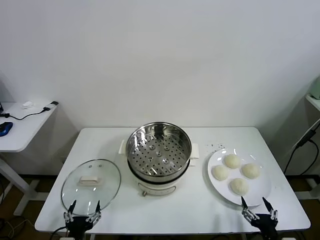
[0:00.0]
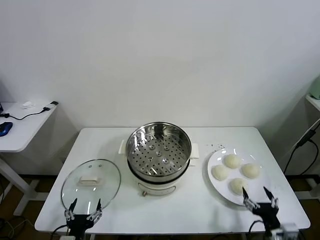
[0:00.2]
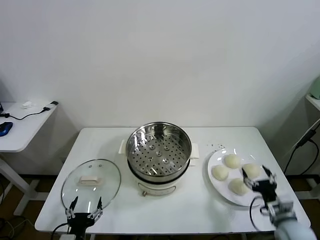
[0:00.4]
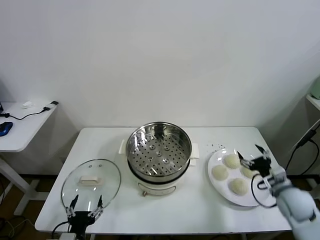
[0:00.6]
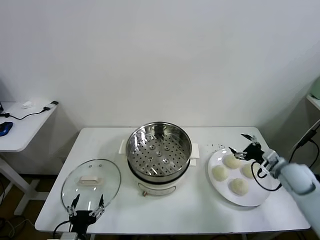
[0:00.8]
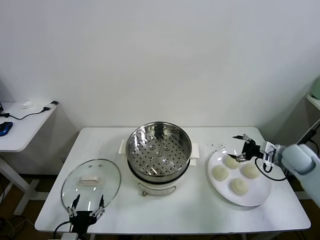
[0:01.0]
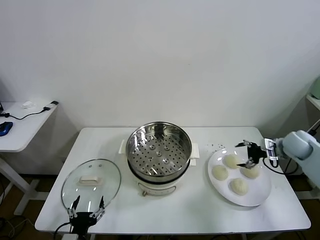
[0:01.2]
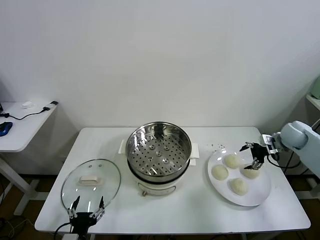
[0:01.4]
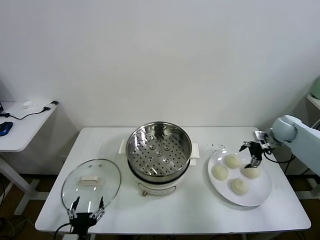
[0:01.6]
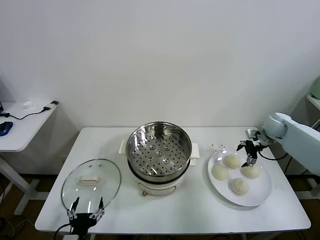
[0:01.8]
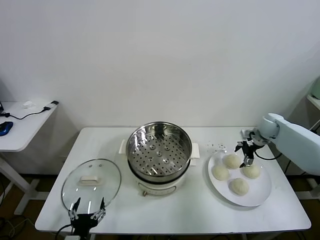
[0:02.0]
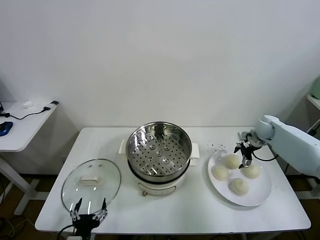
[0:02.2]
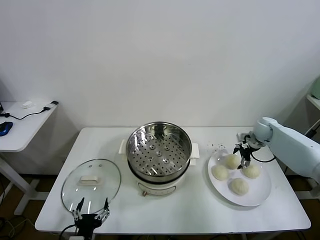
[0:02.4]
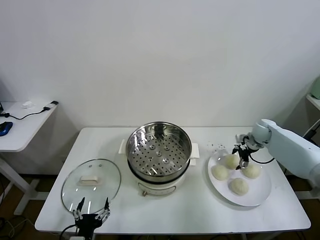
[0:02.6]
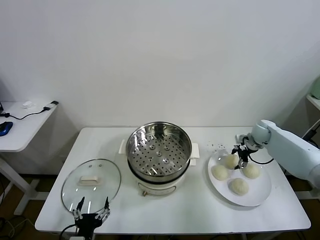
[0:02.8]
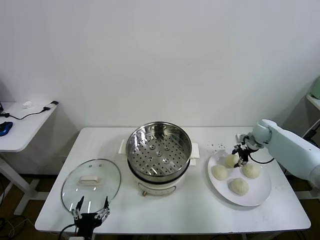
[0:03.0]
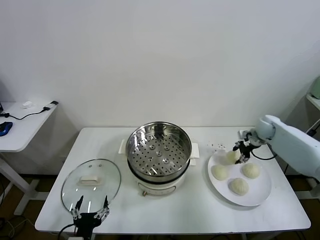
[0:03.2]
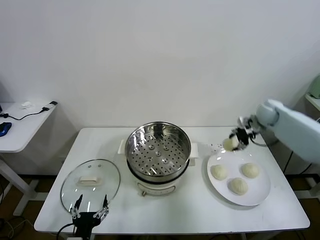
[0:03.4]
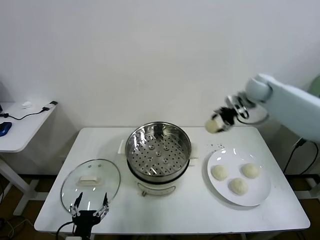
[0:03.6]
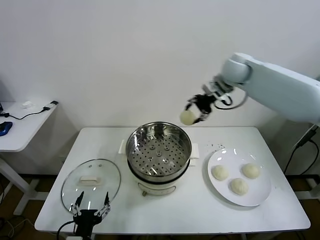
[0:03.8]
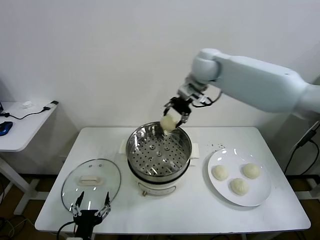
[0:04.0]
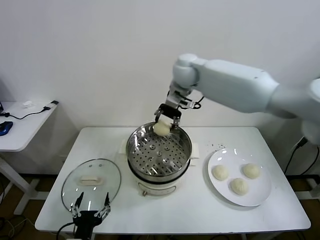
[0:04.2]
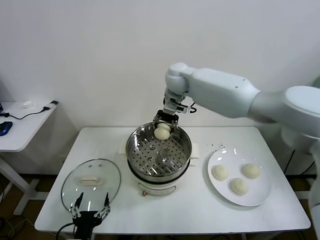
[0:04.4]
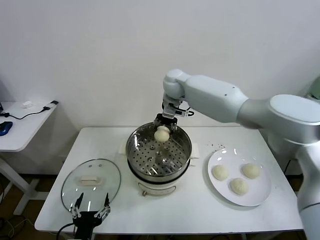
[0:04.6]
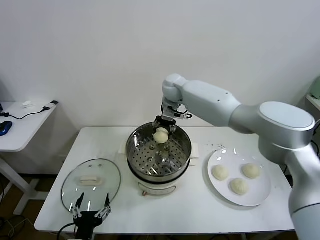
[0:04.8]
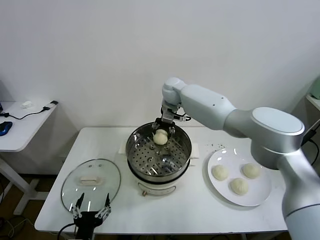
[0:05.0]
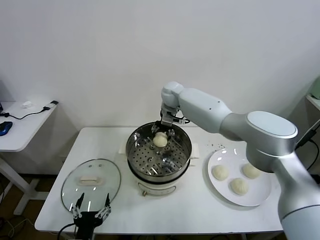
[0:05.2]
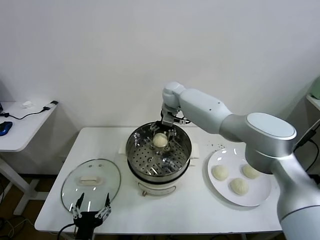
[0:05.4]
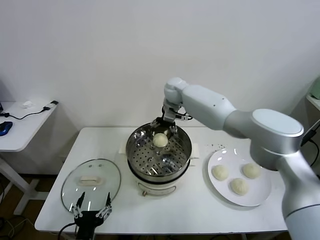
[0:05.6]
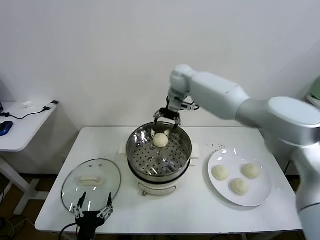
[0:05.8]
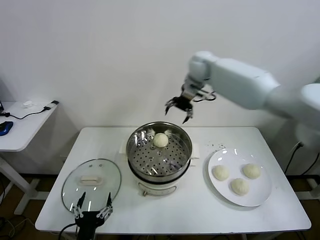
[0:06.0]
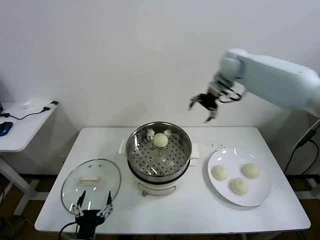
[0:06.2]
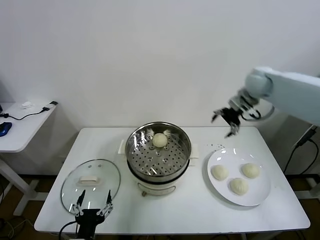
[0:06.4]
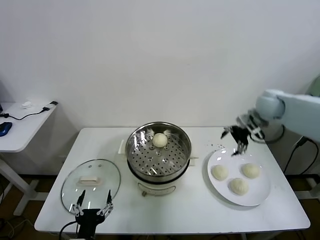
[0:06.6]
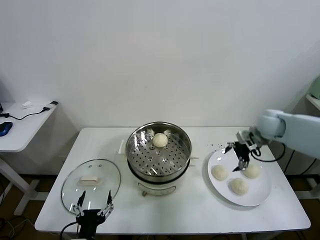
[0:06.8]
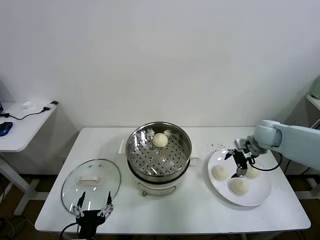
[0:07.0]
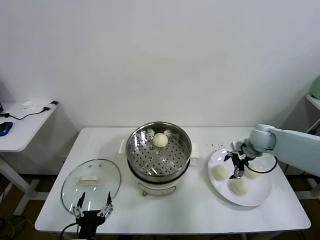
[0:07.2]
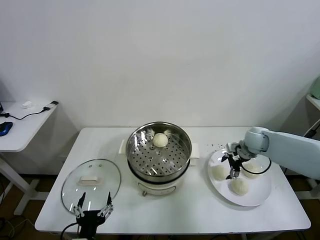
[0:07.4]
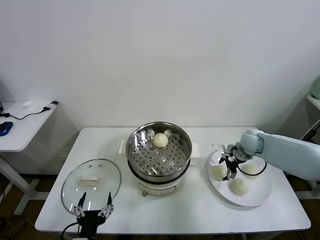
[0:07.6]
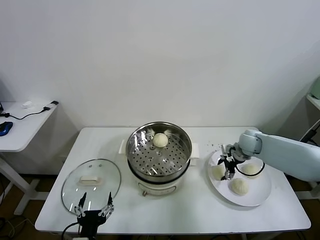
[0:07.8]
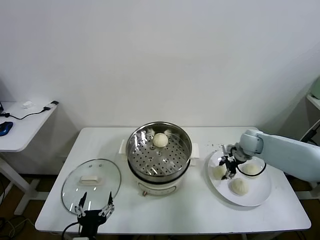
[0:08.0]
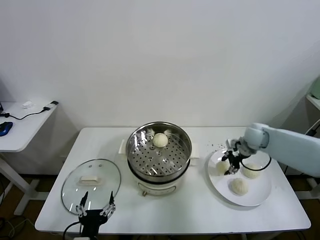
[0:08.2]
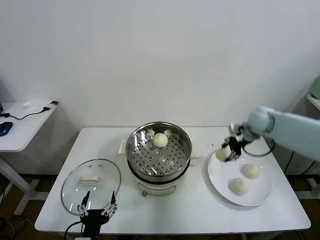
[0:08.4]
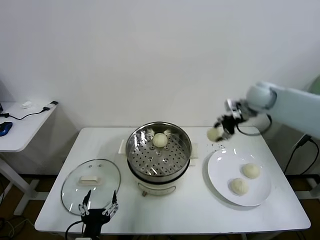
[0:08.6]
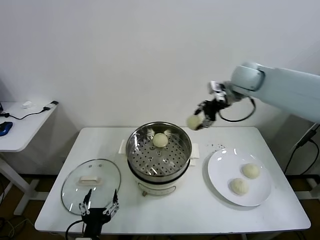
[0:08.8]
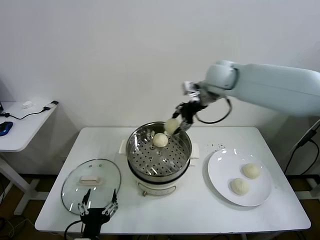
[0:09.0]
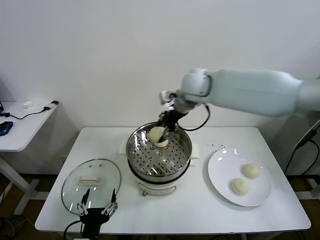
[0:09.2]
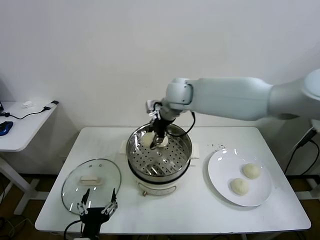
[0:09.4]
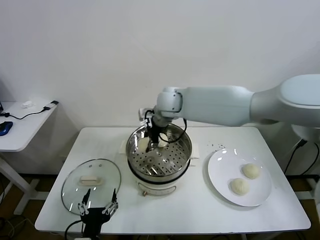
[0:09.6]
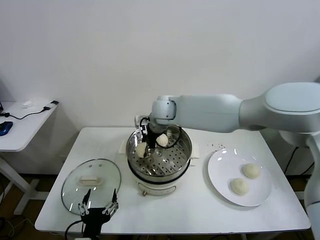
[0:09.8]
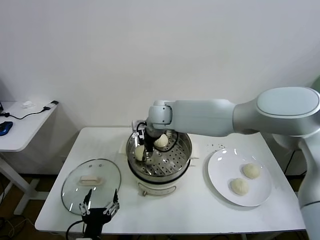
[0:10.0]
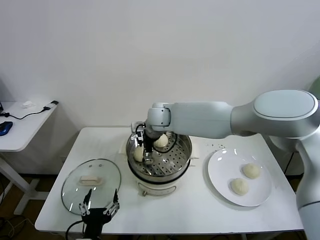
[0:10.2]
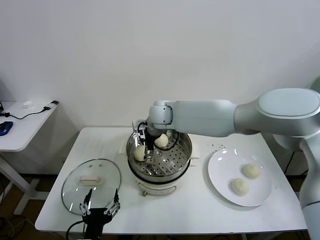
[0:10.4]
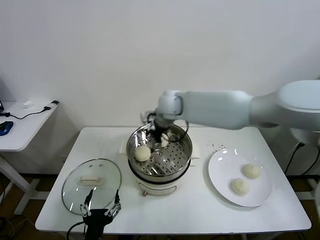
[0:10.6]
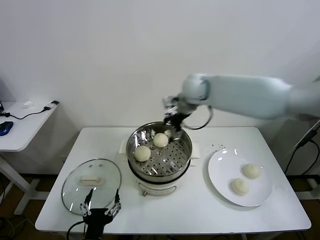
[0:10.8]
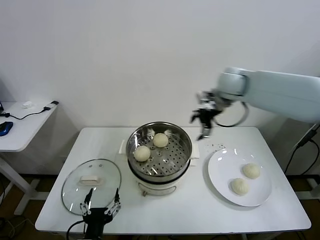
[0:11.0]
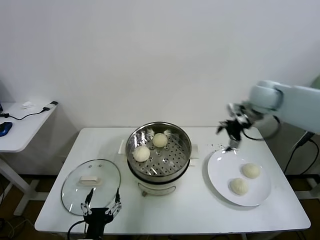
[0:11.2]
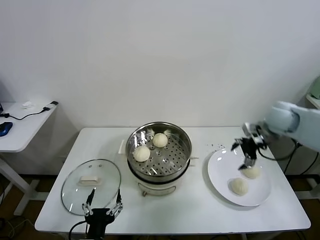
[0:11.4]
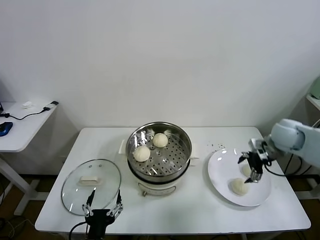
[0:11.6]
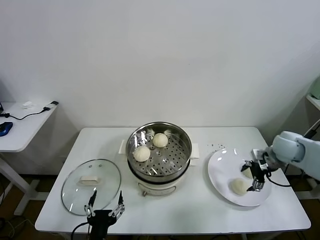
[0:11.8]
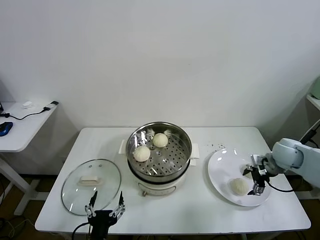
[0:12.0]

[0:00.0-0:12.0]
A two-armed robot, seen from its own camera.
Task of the whole recording: take steamed baozi put them in steamer.
Step, 0.0 to 2.8 s: Grasp the baozi in the plate with right gripper.
Step, 3.0 to 5.4 s: Place the baozi on the steamer with right gripper.
Step, 5.6 to 7.8 s: Grasp the baozi in the plate with right gripper.
Step, 8.2 to 10.0 s: Place the baozi on the steamer with right gripper.
1.6 to 3.0 s: The right gripper shifts by approximately 5 cm, and closes its fingers.
3.0 to 4.4 s: The right gripper is displaced to the left and upward by some 40 cm.
4.4 to 6.0 s: The right gripper shifts approximately 15 cm to the right and upward, and opens.
6.0 to 7.6 s: The right gripper moves downward, to the right and backward, roughly 35 cm.
7.6 to 9.0 s: The right gripper goes about 35 cm upward and to the left, and closes.
9.0 to 10.4 s: The right gripper is displaced to the left and downward by about 20 cm, and opens.
10.4 to 12.0 s: The right gripper is displaced to the right by roughly 40 cm.

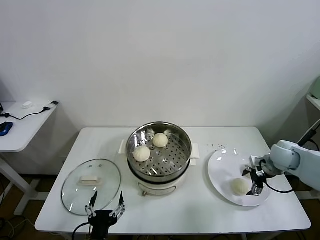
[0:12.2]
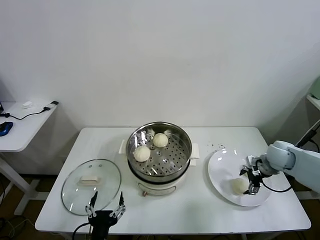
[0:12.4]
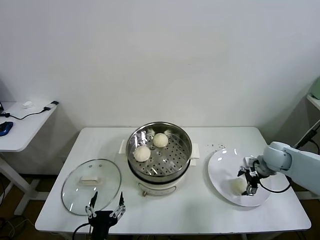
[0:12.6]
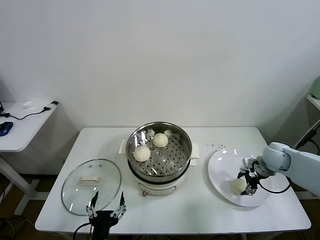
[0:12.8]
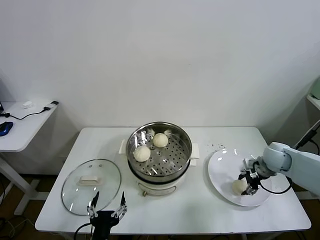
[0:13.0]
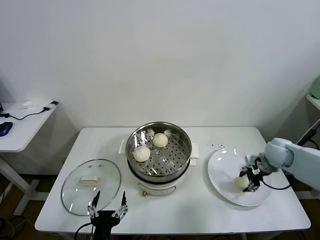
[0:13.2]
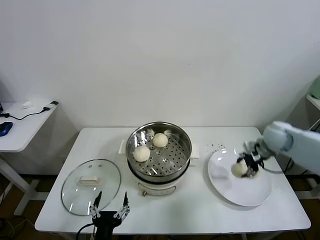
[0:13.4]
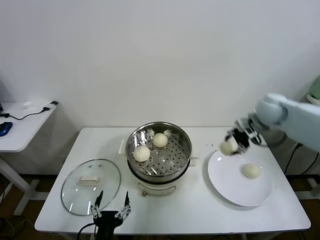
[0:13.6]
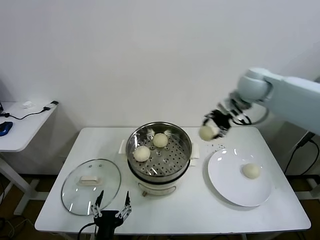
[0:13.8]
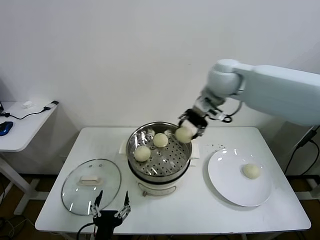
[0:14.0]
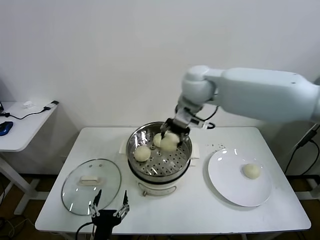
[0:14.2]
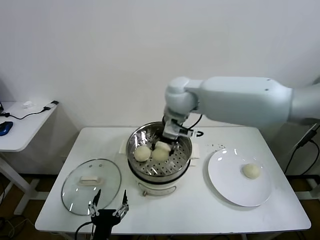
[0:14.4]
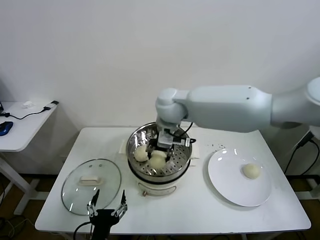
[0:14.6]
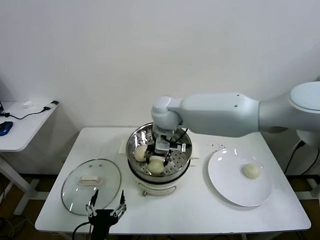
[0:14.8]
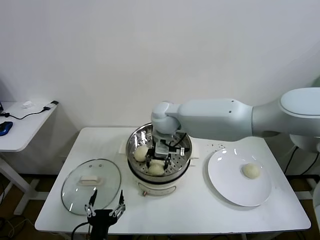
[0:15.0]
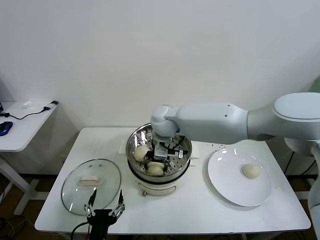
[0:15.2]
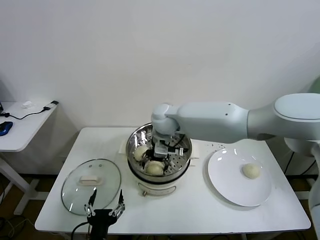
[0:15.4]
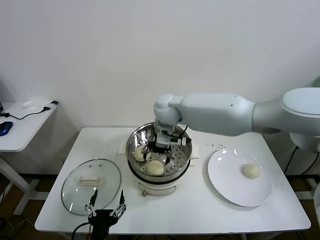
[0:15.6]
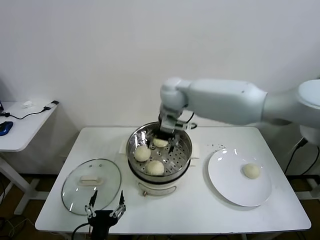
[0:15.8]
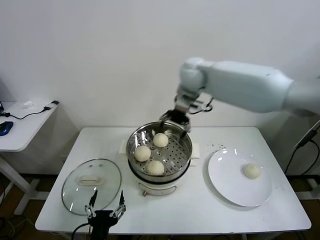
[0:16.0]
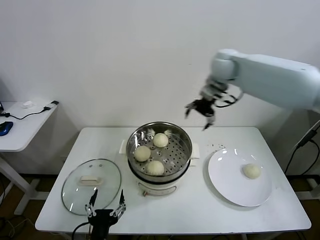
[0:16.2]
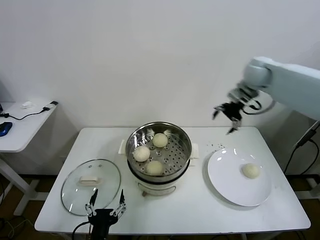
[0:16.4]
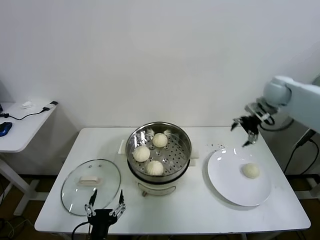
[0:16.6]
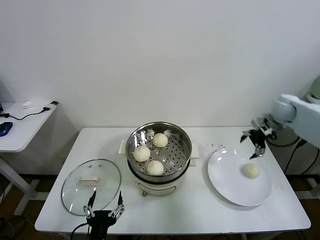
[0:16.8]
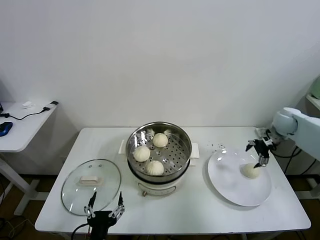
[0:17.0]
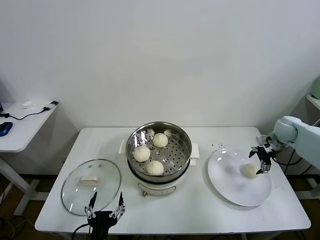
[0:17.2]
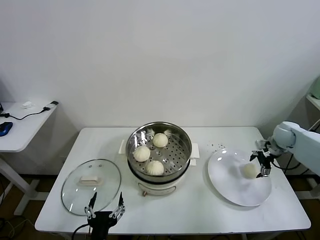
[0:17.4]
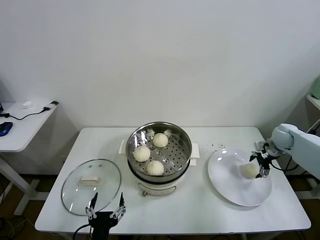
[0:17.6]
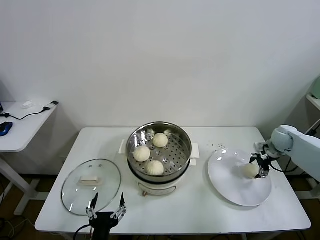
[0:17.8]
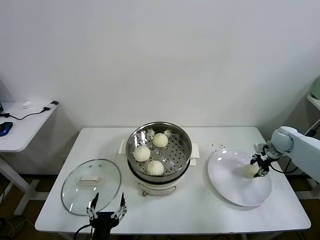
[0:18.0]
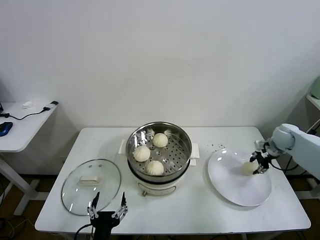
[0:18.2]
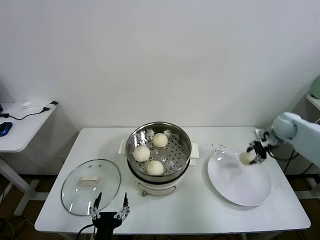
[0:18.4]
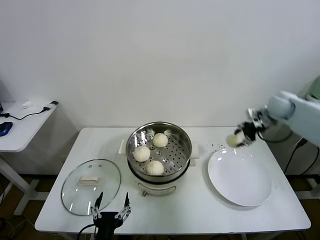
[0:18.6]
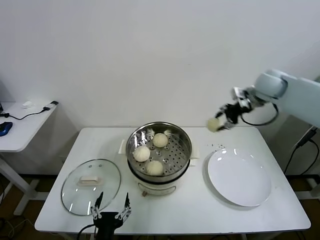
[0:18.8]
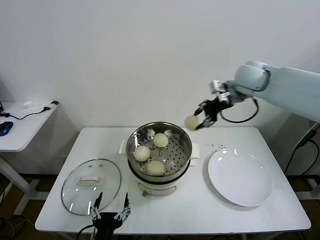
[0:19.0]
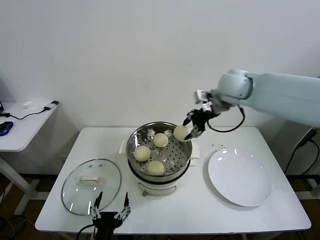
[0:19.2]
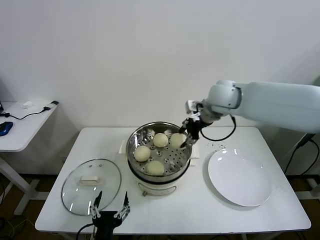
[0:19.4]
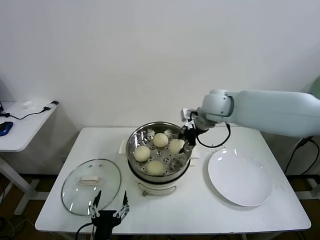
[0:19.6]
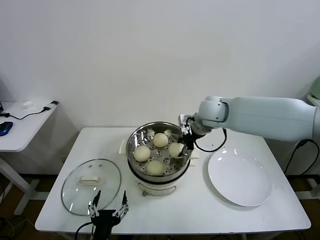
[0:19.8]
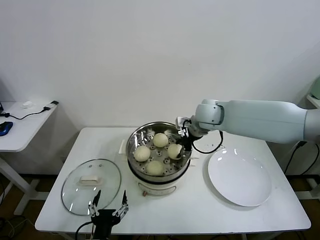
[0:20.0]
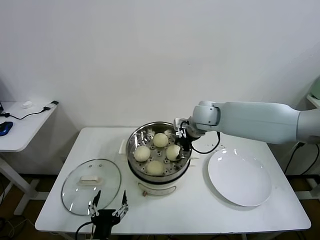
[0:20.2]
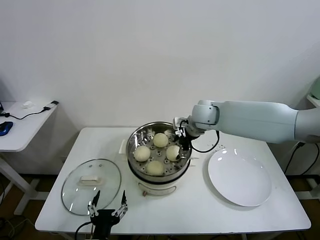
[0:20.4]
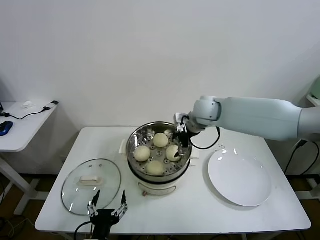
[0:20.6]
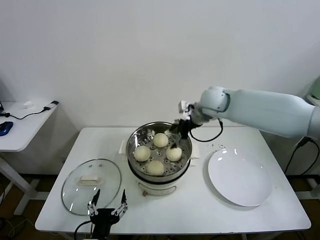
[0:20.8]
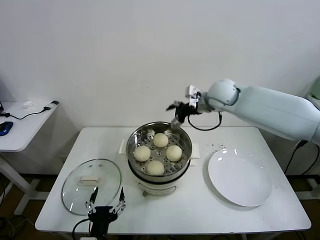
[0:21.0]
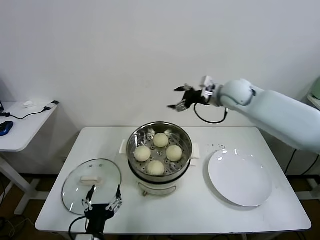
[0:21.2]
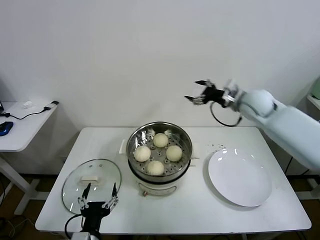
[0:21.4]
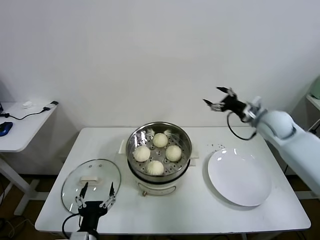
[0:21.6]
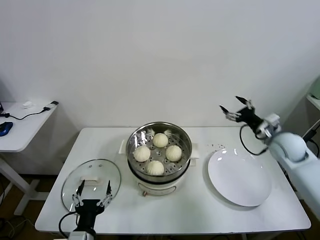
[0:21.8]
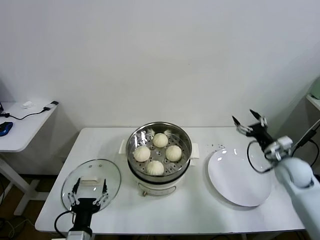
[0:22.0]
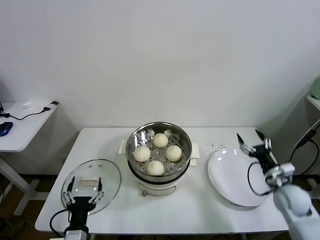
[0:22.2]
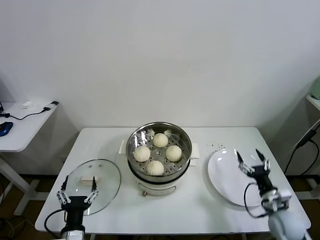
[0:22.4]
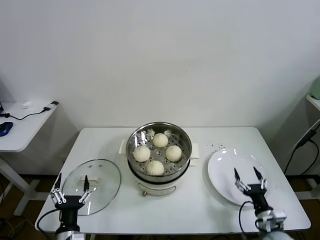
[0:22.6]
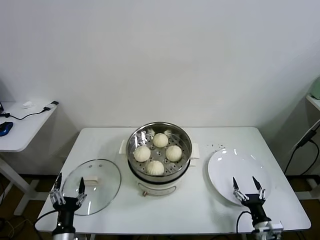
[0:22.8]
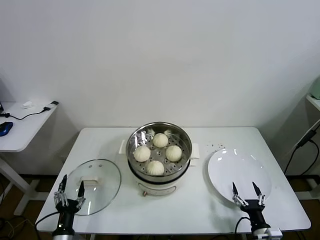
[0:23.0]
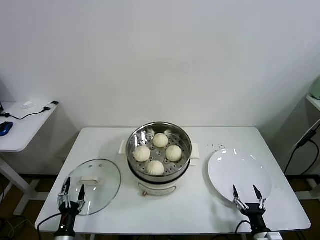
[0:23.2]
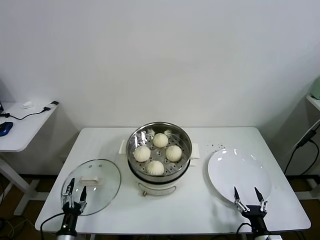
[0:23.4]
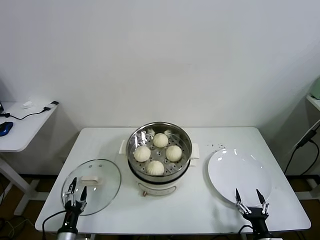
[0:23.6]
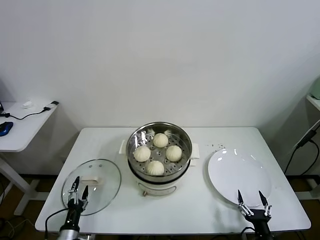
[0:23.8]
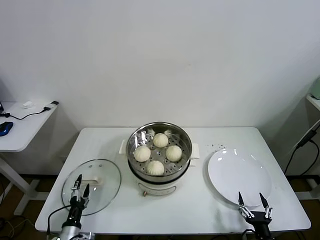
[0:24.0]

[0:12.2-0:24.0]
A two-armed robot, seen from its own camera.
Task of the whole recording: take steamed baozi put them in steamer.
Step, 13.0 to 15.4 s: Place the baozi on the steamer with right gripper.
Step, 15.6 to 18.0 s: Grasp the baozi in the plate with right gripper.
Step, 18.2 to 20.2 s: Place the baozi on the steamer with right gripper.
12.2 to 13.6 s: The right gripper goes some 20 cm upward, to the left and forward, and closes up.
13.6 to 15.2 s: The right gripper shifts some 35 cm to the left.
15.2 to 16.6 s: The right gripper shifts some 40 cm to the right, and opens.
16.6 to 18.2 s: The right gripper travels downward and to the right by some 20 cm, and closes its fingers.
18.2 to 19.6 s: The right gripper moves to the left and upward, approximately 35 cm.
19.6 to 21.0 s: The right gripper opens.
21.0 to 22.6 s: The left gripper travels to the left and downward by some 10 cm. The right gripper shifts about 50 cm downward, backward and to the right.
22.6 to 24.0 s: The left gripper moves downward and to the left, roughly 15 cm. Meanwhile the right gripper heads backward, covering roughly 10 cm.
